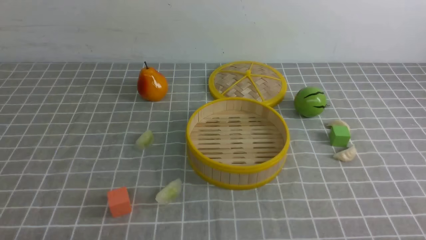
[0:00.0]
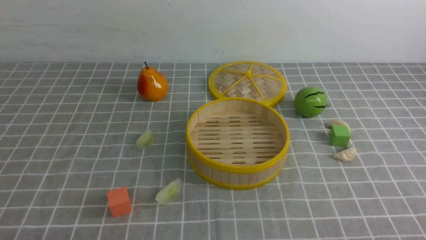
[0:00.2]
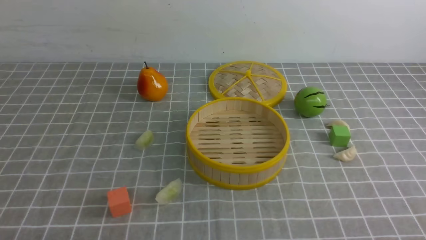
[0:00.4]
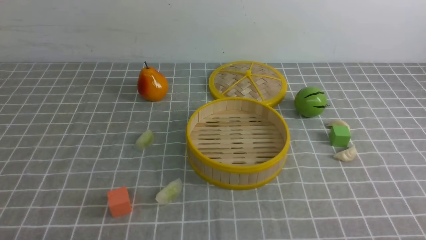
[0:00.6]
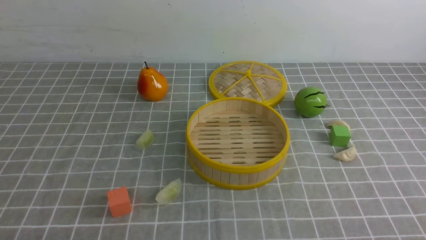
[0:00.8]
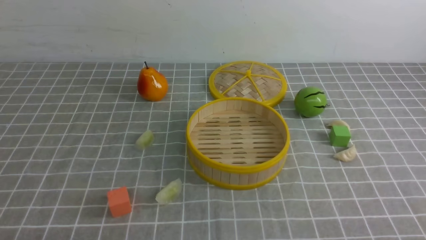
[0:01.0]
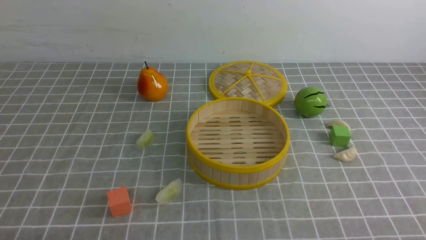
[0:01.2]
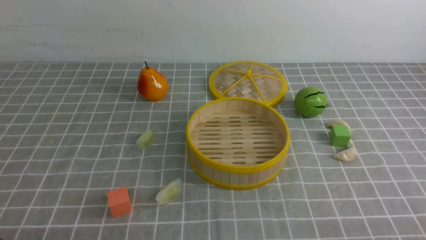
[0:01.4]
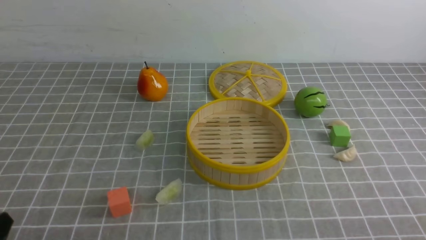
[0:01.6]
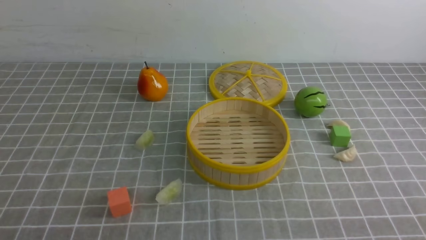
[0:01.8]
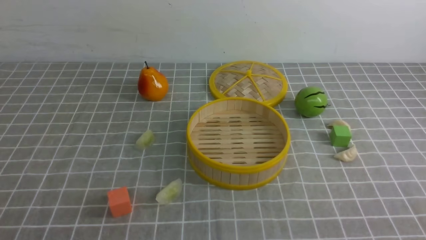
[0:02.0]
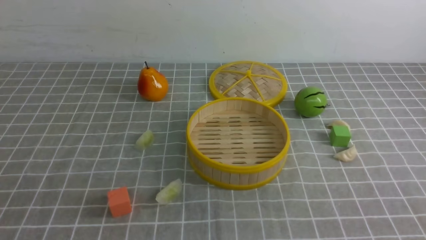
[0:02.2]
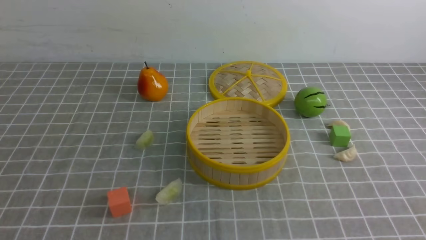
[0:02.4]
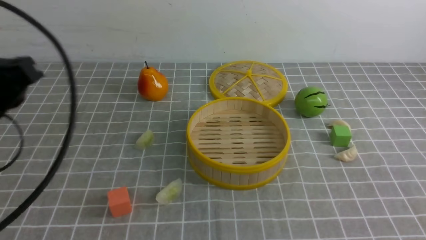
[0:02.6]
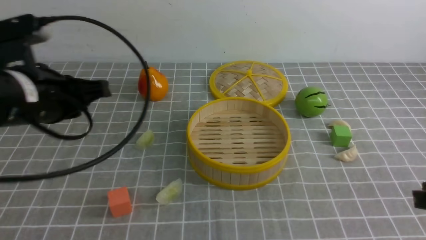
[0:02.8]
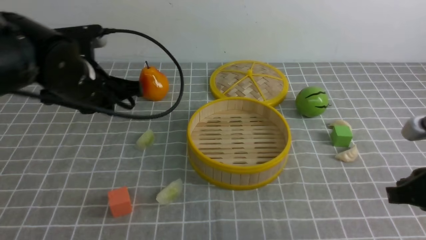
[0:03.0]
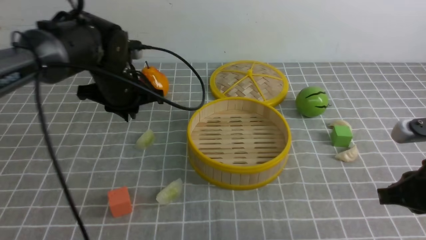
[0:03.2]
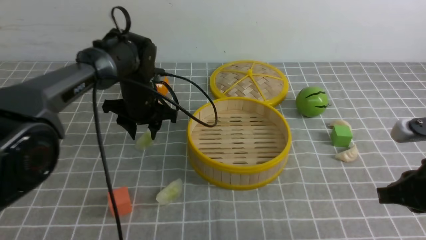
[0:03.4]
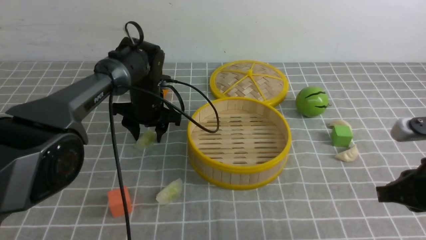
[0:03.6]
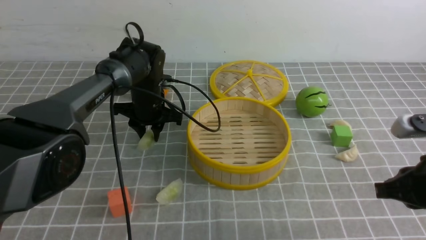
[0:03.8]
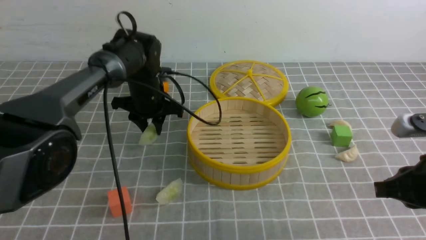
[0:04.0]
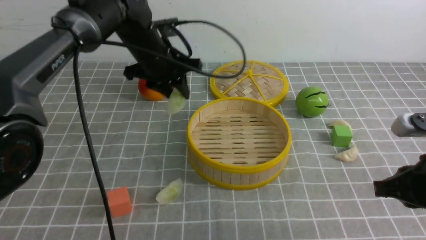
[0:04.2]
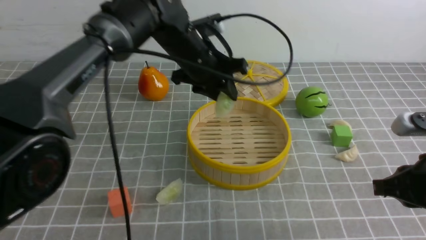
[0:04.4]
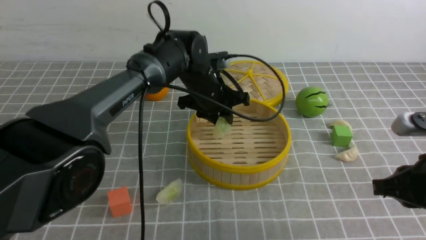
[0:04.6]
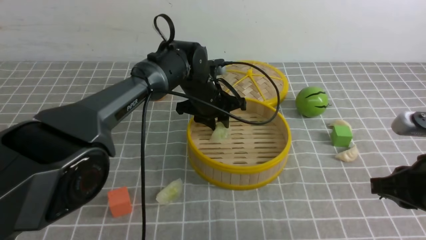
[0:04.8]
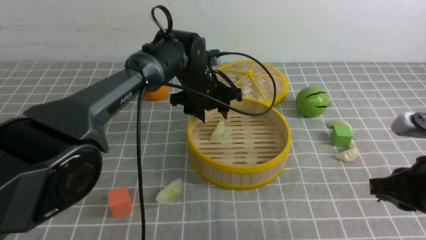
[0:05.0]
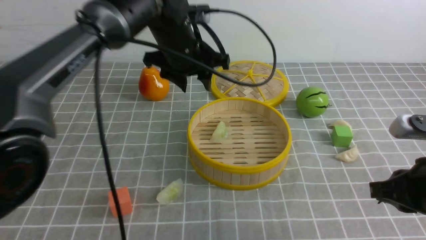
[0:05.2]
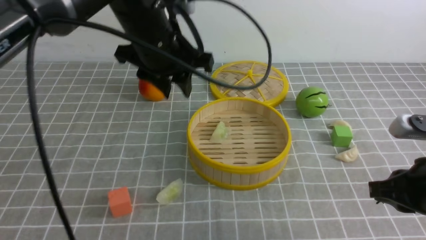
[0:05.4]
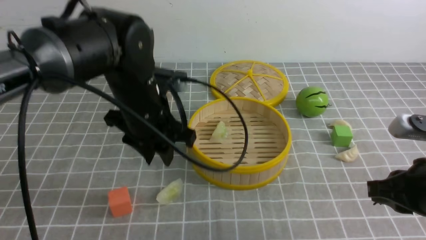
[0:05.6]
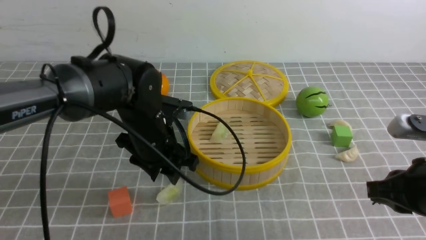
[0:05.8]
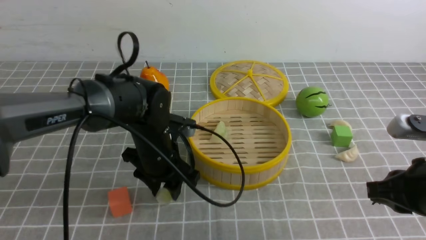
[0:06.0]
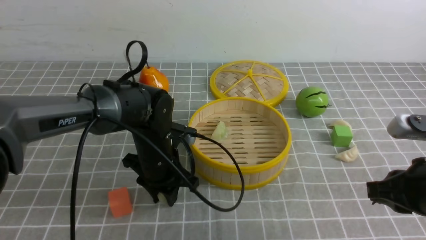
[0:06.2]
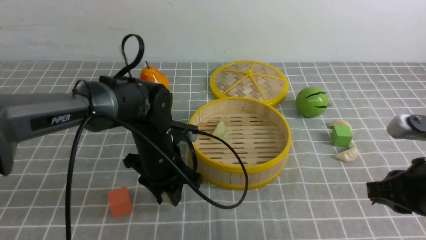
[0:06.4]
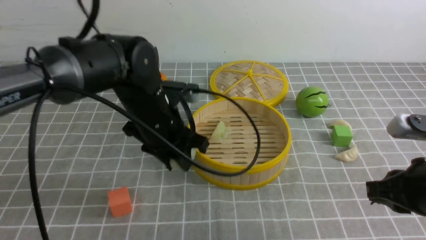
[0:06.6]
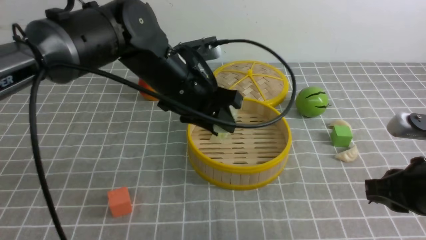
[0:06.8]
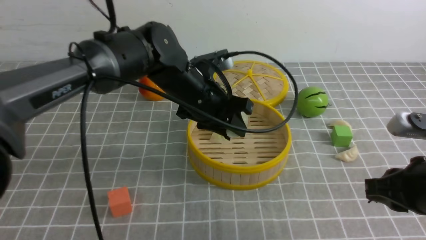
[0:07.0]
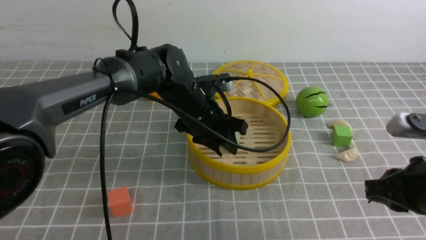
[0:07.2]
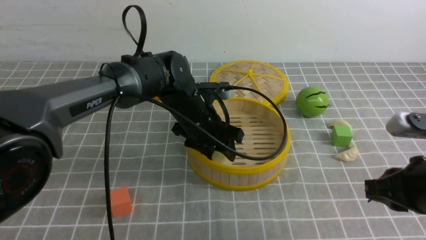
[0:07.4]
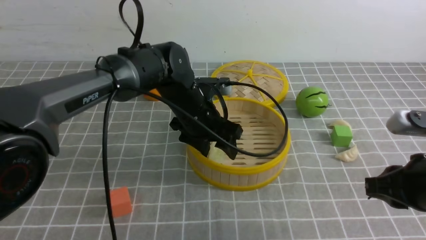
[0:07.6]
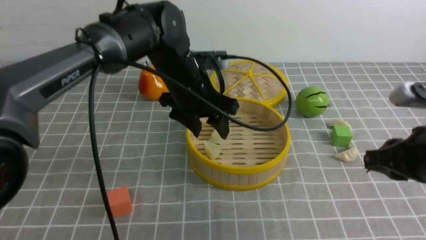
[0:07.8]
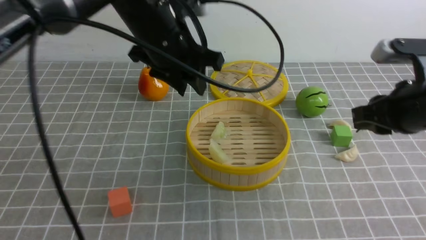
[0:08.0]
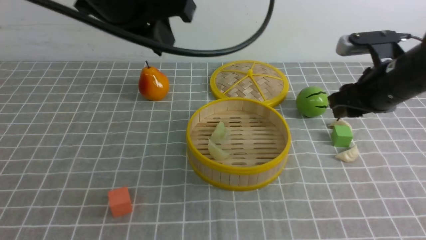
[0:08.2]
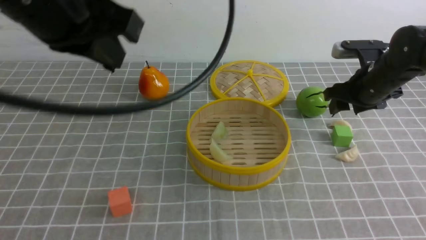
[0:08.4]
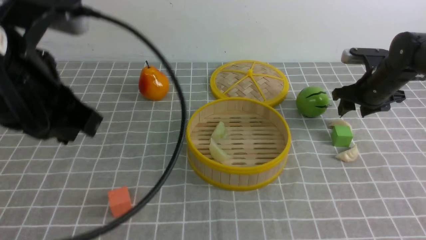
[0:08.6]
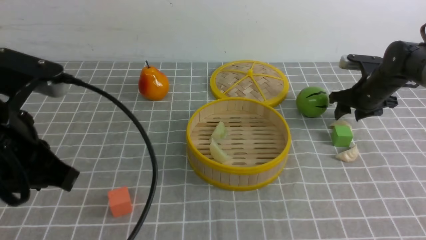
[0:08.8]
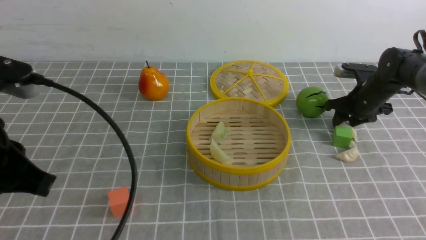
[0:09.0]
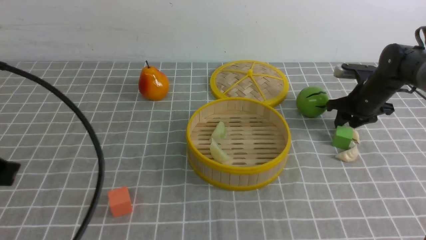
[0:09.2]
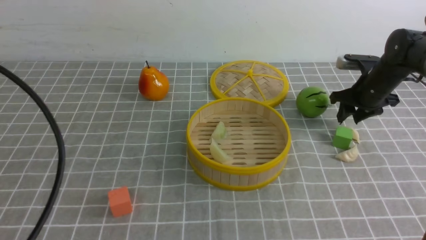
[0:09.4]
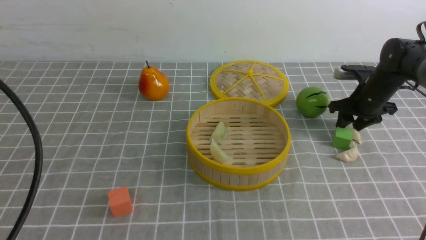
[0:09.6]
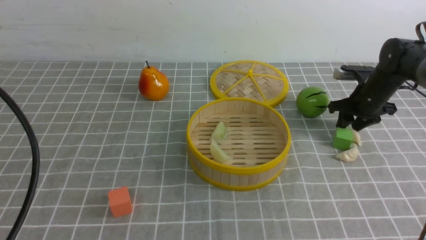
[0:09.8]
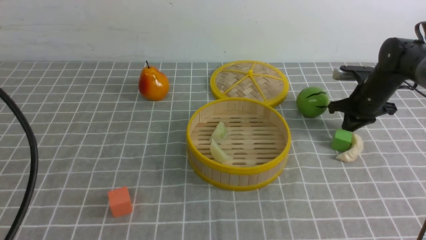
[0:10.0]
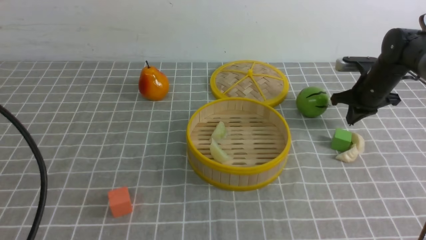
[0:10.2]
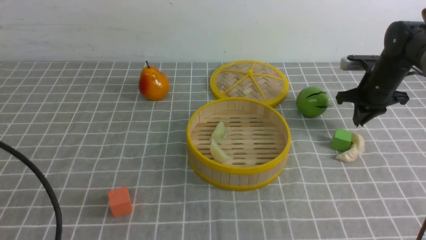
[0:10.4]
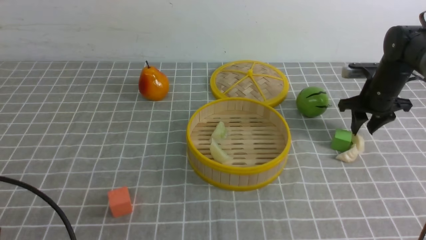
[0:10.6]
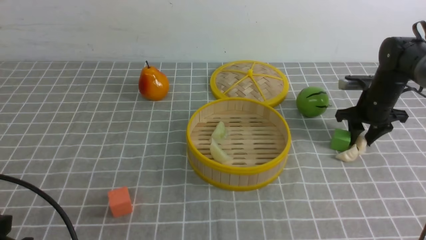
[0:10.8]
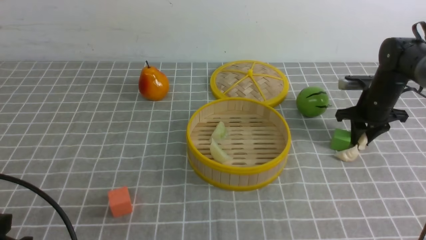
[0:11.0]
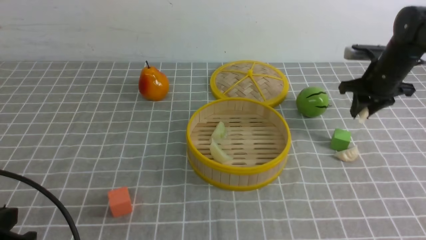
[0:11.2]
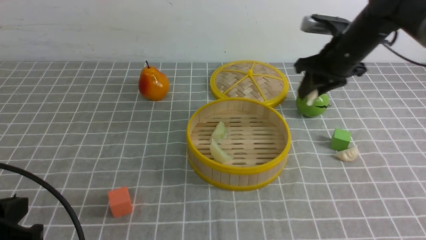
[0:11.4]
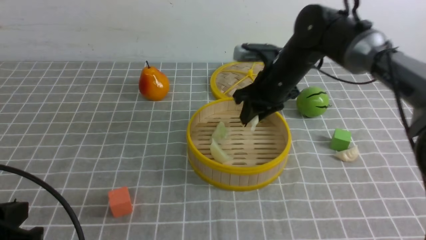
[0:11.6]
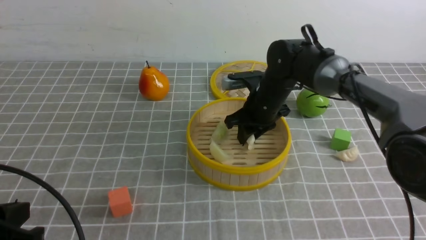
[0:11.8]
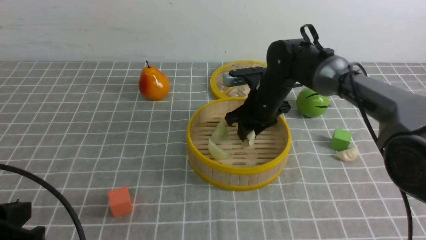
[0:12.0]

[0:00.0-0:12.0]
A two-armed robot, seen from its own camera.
Task of the whole recording: put the dumplings into the steamer on the table with the grey tablecloth.
Step, 0:00.0 to 0:04.0: use the left arm to grab a dumpling.
Step, 0:04.2 to 0:05.0: use the left arm to put the dumpling into the steamer.
Step, 0:05.2 to 0:06.4: use the left arm to grab a dumpling.
Step, 0:06.6 to 0:07.8: use the left arm to put the dumpling into the steamer.
Step, 0:08.0 to 0:11.0: use the right arm to grab a dumpling.
0:01.6 to 0:03.0: The right gripper moves forward, some 15 cm, and closes. Meanwhile the left gripper is displaced forward by roughly 30 cm, and closes up.
0:03.0 to 0:04.4: The left gripper moves to the right and forward, approximately 15 cm, and opens its fingers.
0:04.4 to 0:06.0: The left gripper moves up and down over about 15 cm, changing direction 2 times.
0:06.0 to 0:07.6: The left gripper goes approximately 10 cm upward and to the right.
0:07.6 to 0:09.0: The left gripper shifts some 30 cm backward, to the left and upward, and closes up. The right gripper heads forward, covering roughly 30 cm, and opens its fingers.
0:09.0 to 0:10.4: The left gripper moves downward, about 5 cm, while the right gripper closes.
0:10.4 to 0:12.0: The right gripper travels to the left by about 25 cm.

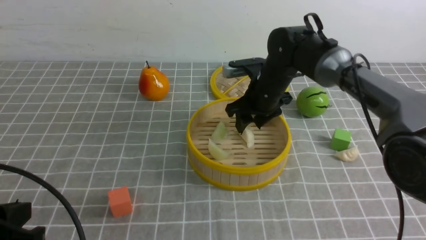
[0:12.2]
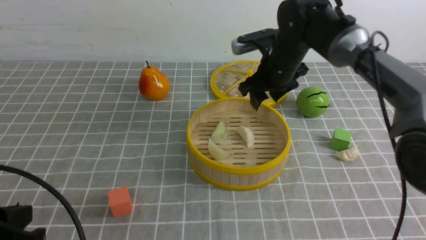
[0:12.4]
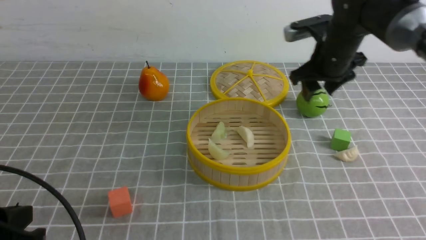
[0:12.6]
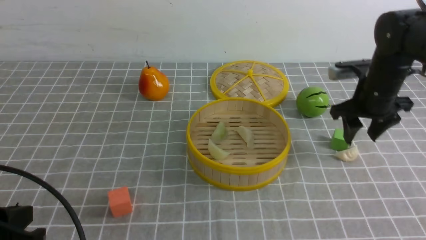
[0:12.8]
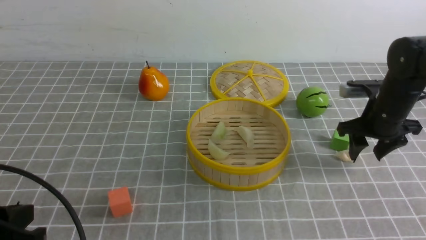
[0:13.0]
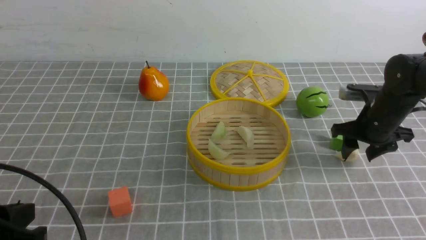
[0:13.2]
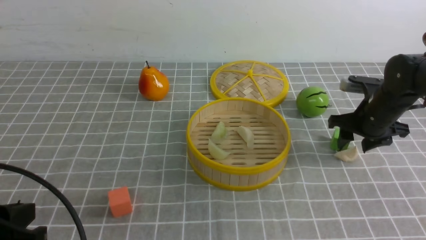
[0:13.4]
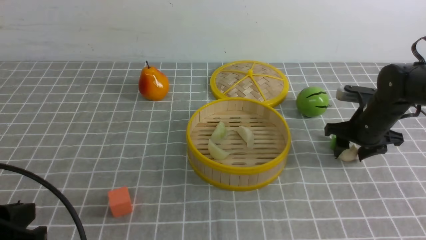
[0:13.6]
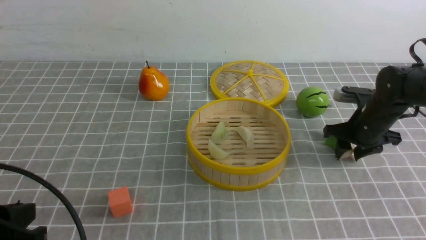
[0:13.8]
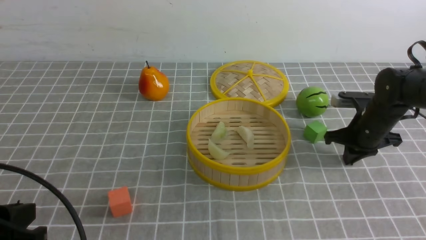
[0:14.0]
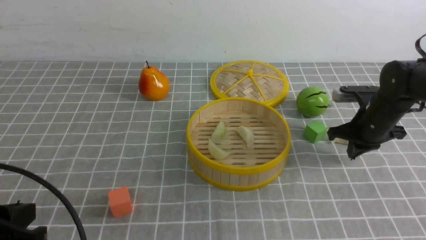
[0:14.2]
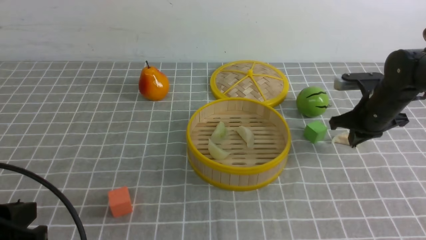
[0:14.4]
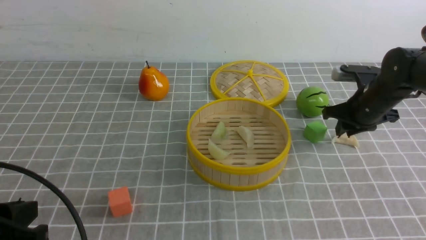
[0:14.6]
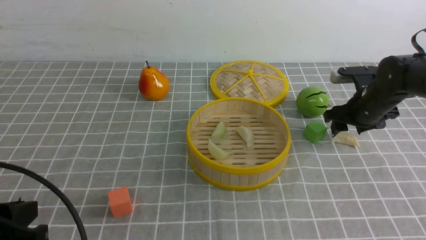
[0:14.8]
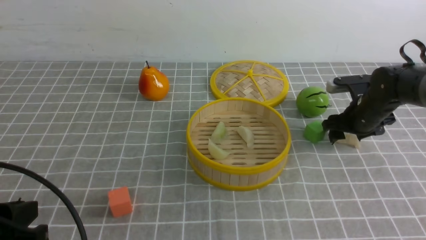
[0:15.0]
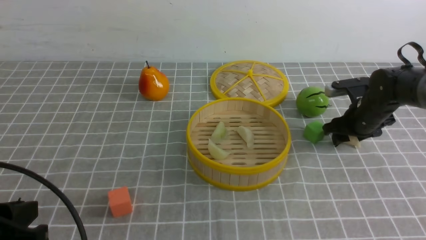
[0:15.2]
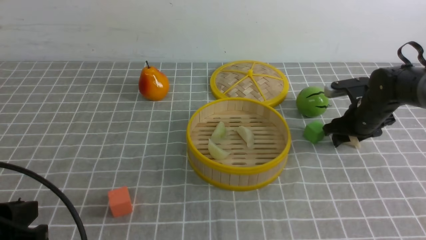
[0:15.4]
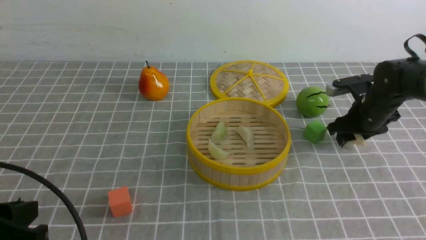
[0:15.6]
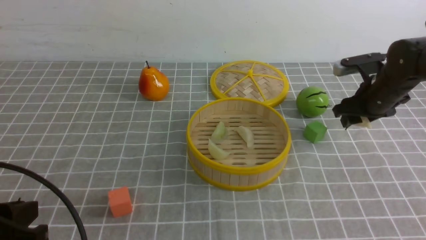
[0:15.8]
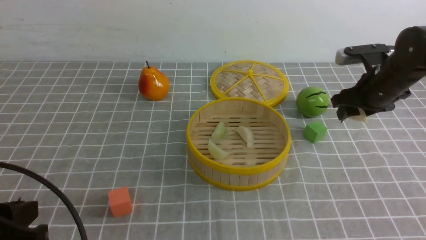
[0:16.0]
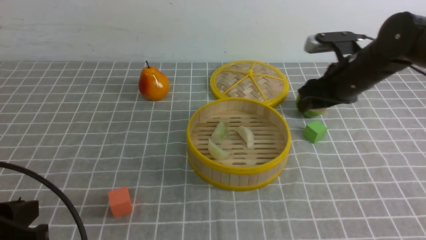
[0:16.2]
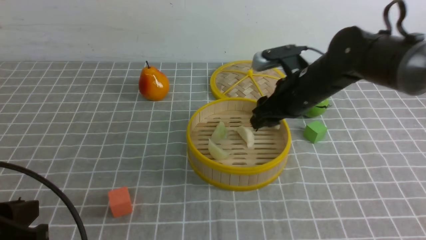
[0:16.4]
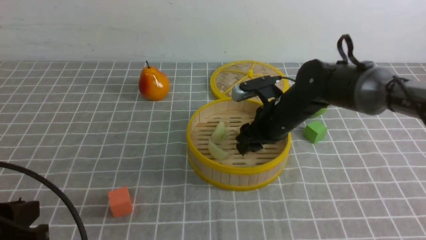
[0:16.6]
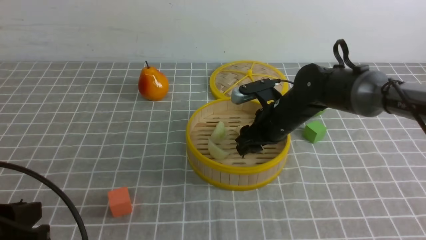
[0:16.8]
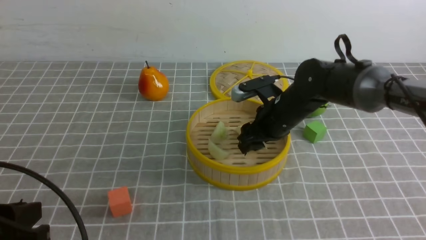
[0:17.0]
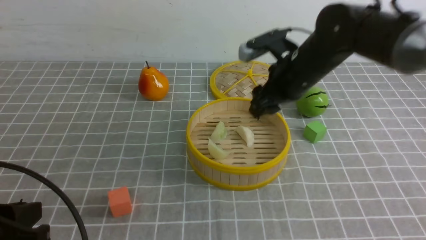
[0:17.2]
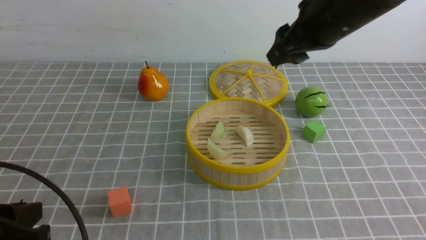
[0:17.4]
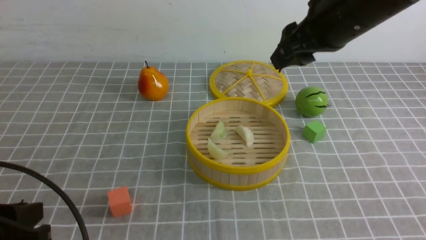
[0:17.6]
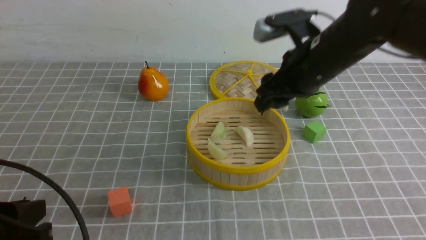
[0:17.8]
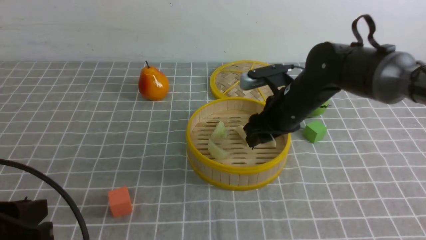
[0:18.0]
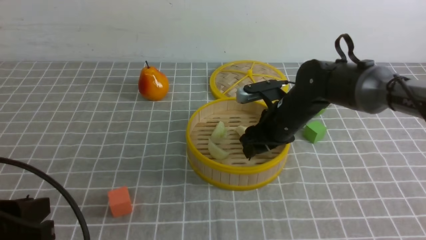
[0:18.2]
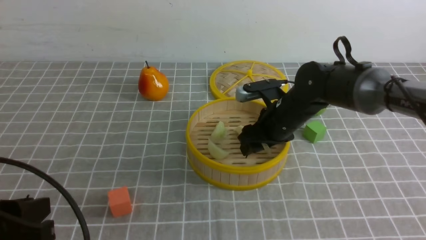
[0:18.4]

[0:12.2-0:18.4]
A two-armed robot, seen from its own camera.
Task of the whole recording: put the dumplings into the steamer on the table with the grey tablecloth.
Step, 0:12.4 to 0:15.6: use the right arm to grab a dumpling.
0:12.2 to 0:13.8: The right gripper heads to the right, covering some 20 cm.
0:13.8 to 0:15.4: The right gripper closes, then reopens.
0:15.4 to 0:16.8: The right gripper is displaced to the left by some 15 cm.
0:16.8 to 0:18.4: The right gripper goes upward and returns, some 20 cm each way.
